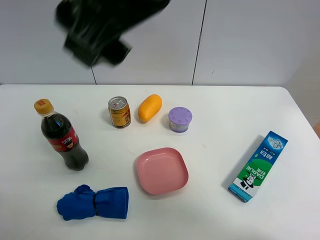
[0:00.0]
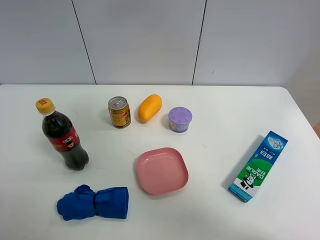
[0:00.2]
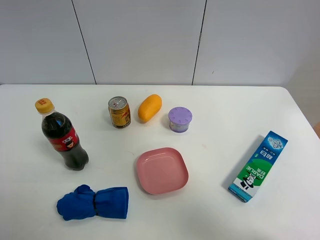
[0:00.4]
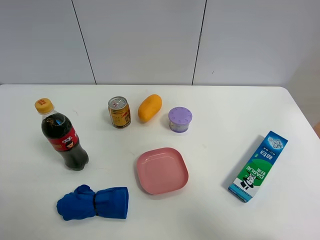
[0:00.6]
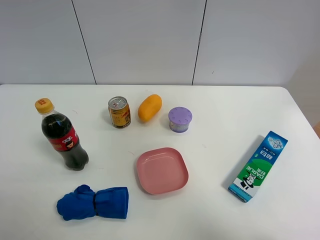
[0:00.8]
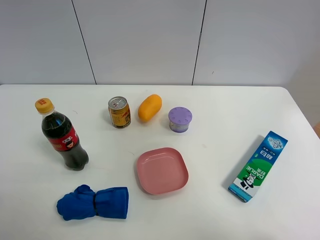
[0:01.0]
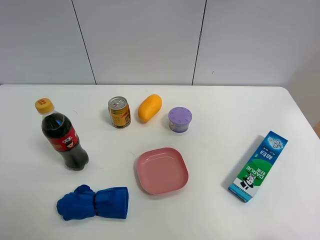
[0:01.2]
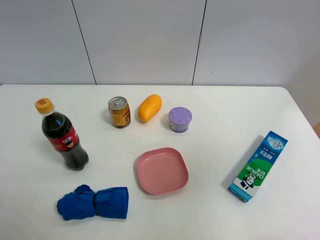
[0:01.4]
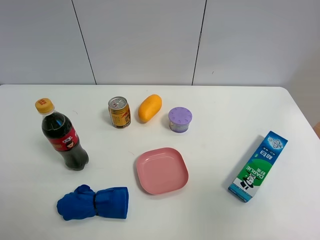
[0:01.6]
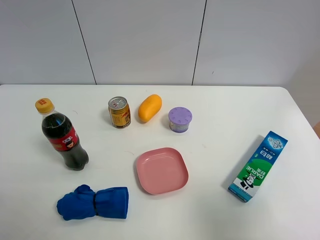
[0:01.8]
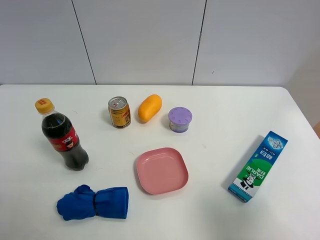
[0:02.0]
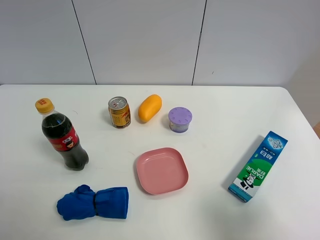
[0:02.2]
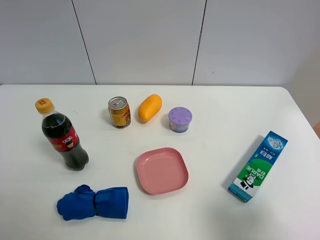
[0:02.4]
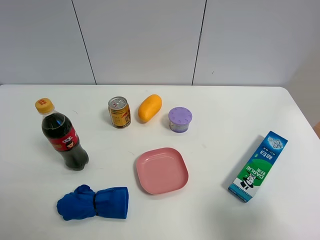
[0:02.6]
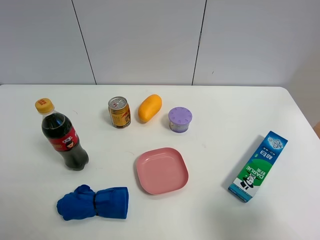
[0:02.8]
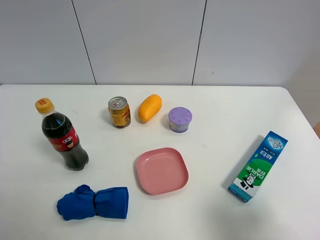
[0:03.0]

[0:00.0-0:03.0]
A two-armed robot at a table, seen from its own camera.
Task of the whole recording: the gripper move the object.
0.0 to 1.6 s: The right gripper shifts roughly 35 cm to the right and backward.
1.6 to 3.0 s: The right gripper is displaced downward by some 15 cm.

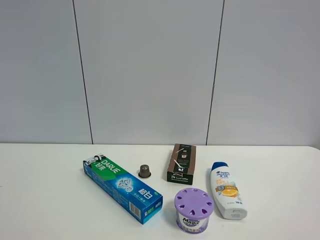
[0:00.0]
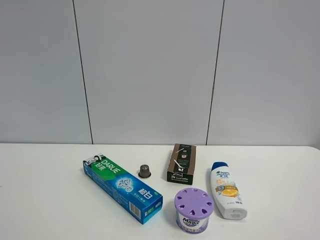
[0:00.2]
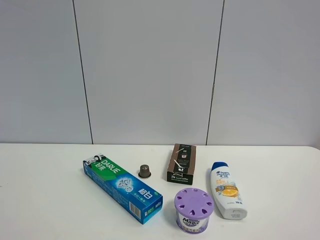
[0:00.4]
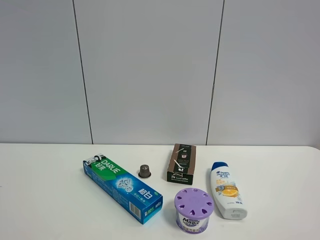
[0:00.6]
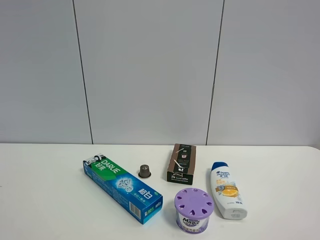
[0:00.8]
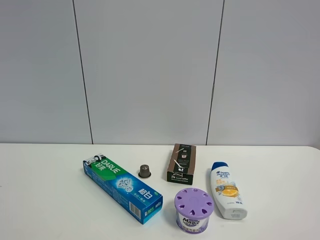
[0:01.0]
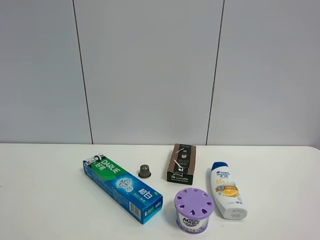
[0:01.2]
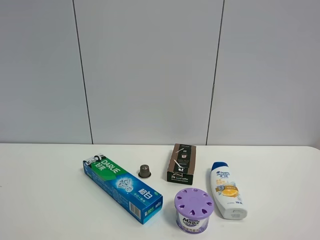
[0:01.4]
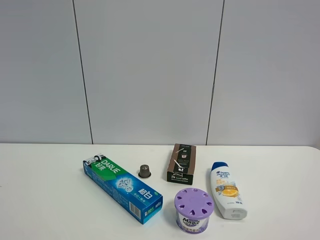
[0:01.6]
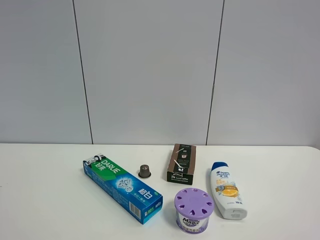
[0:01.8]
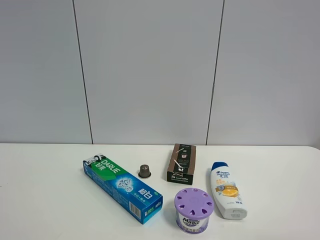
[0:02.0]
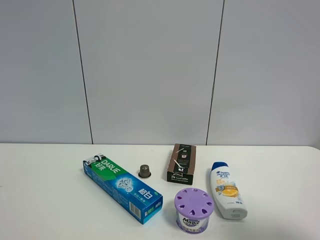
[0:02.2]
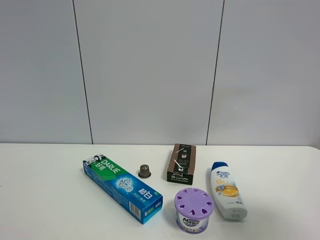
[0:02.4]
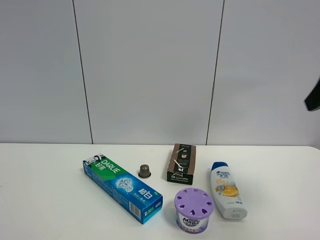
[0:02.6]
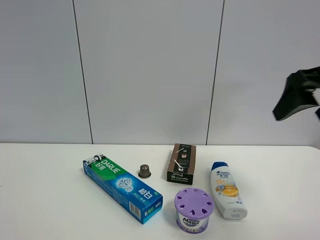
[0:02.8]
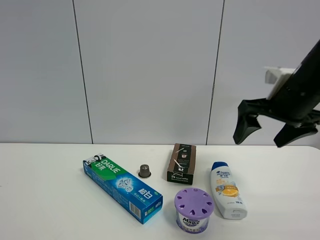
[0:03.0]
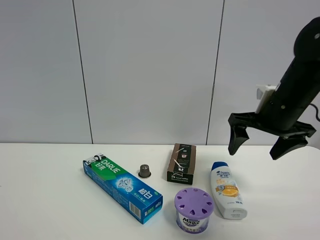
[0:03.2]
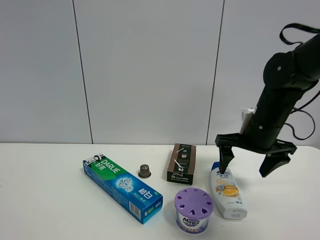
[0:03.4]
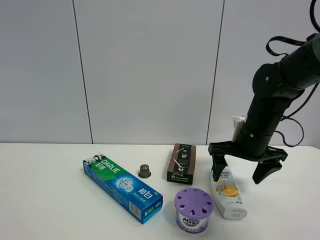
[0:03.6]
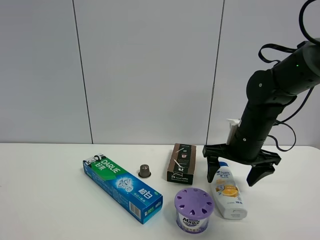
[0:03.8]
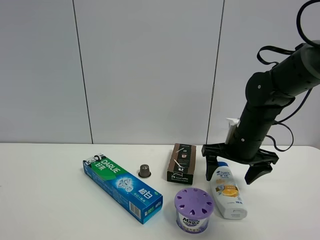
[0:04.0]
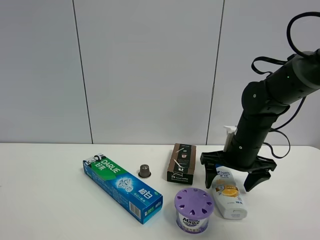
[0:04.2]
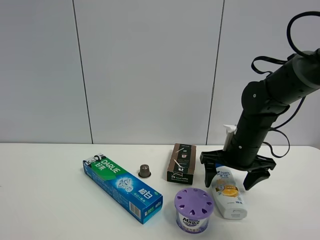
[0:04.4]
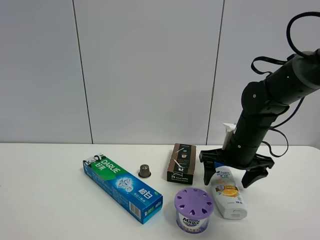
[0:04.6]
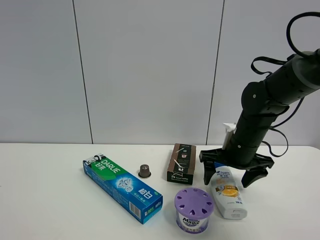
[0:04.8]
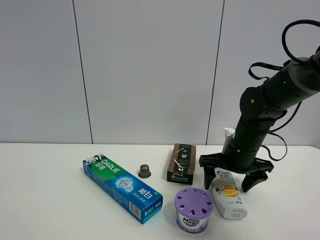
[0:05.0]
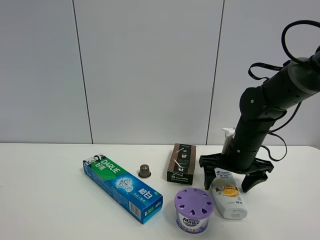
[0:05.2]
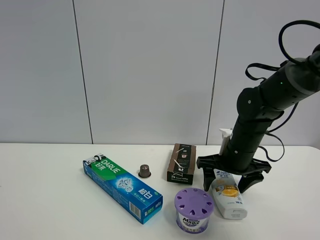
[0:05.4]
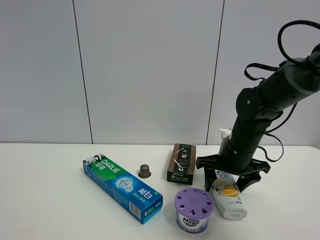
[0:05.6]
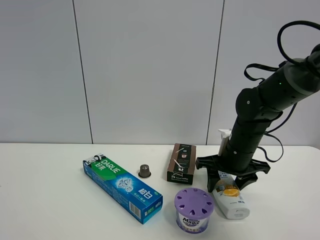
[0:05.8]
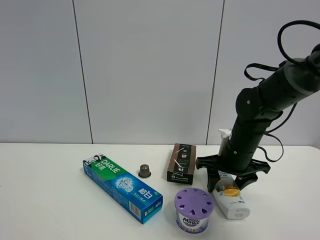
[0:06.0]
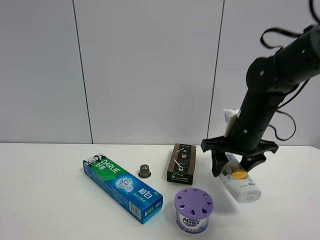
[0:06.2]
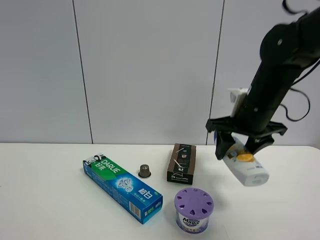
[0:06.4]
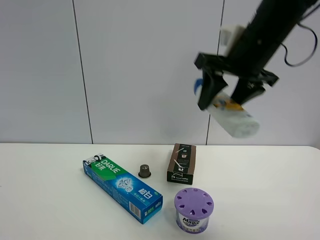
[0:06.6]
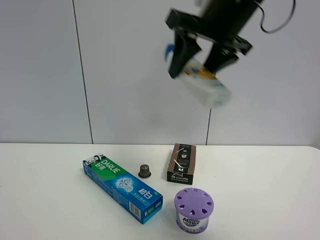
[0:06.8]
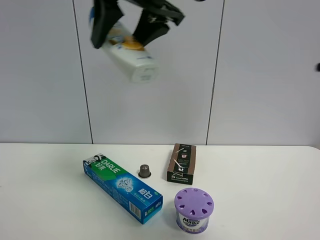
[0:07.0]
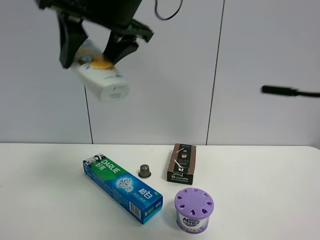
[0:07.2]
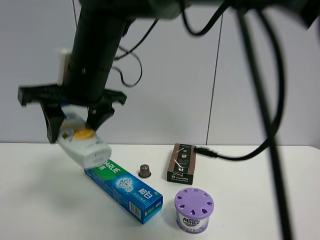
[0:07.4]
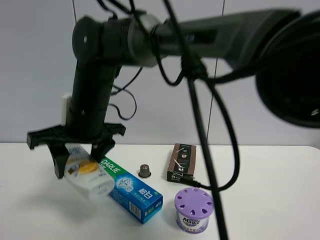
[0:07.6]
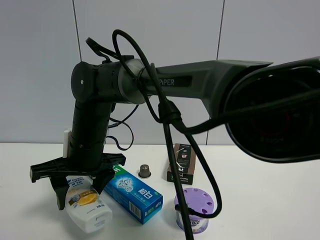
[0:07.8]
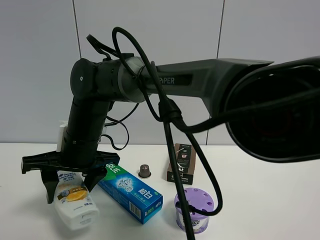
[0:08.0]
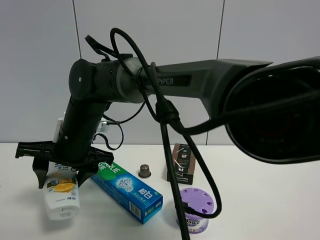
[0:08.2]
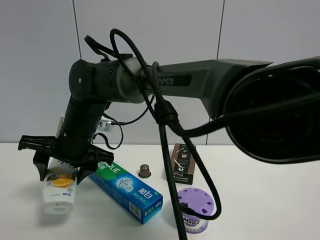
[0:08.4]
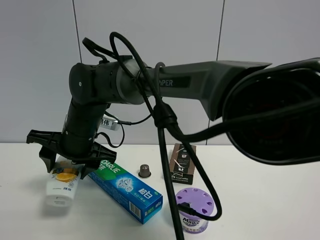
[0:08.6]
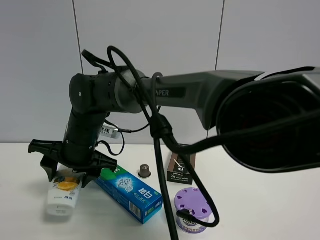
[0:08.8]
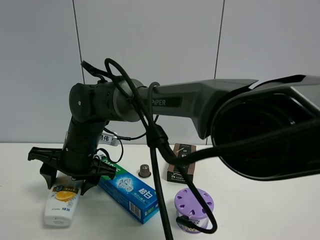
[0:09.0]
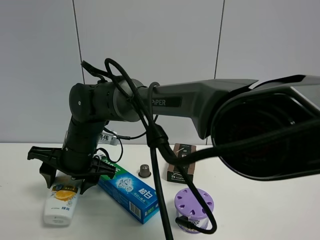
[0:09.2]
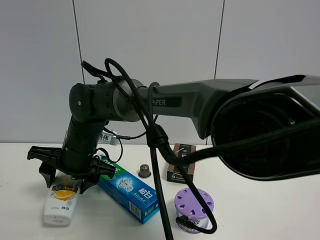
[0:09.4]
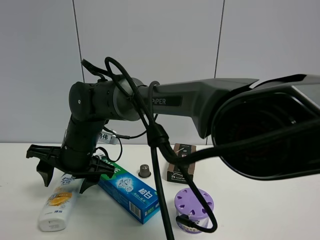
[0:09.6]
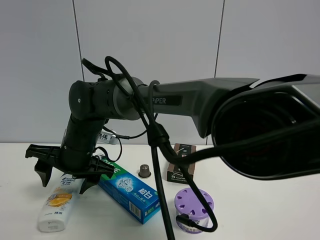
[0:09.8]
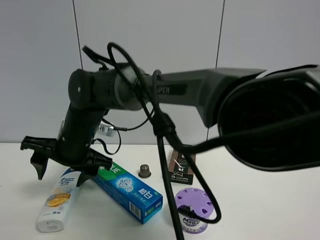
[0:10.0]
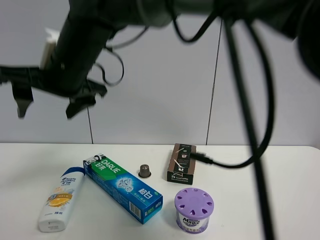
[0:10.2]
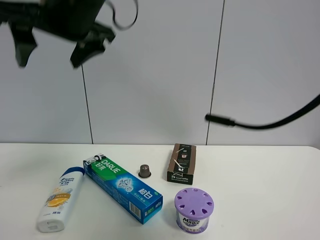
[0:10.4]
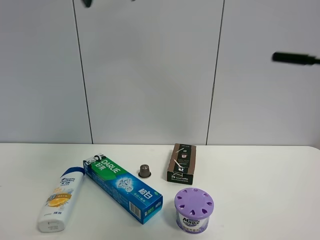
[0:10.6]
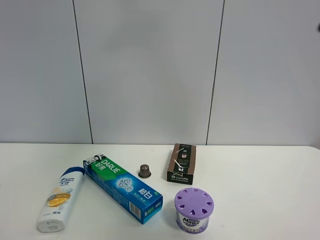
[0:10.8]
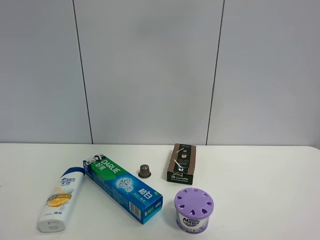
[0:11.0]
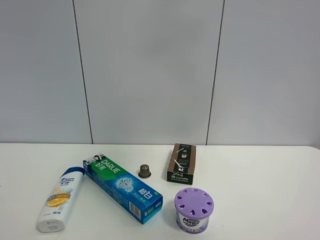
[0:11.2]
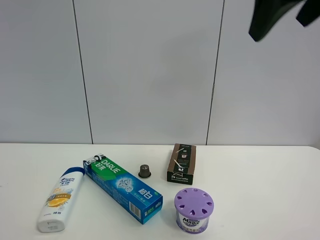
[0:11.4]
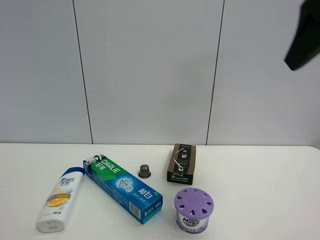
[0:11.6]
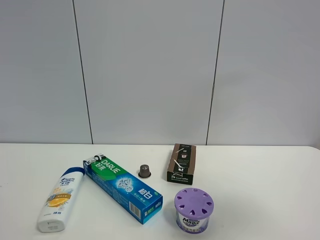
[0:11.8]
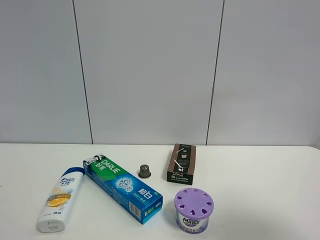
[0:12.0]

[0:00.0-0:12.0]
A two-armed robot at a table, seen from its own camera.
Task of the whole recording: the gripper move the object.
Step, 0.0 to 5.6 s: Grasp the shampoo with the right gripper.
Step, 5.8 to 9.6 s: Place the shampoo on the table with the right gripper.
0.0 to 1.6 s: Both grippers stay put.
1.6 to 3.0 s: The right gripper travels forward by some 30 cm.
3.0 to 4.4 s: The right gripper shifts about 15 cm downward and forward.
4.4 to 6.0 s: The right gripper closes its fingers.
6.0 to 7.6 s: The right gripper travels to the left by some 30 cm.
7.6 to 9.0 s: The right gripper shifts about 5 cm downward.
9.0 to 10.4 s: The right gripper shifts approximately 25 cm upward, and opens its fingers.
10.4 to 12.0 s: The right gripper is displaced to the right and backward by some 40 cm.

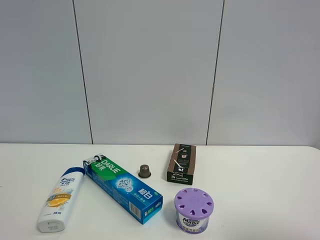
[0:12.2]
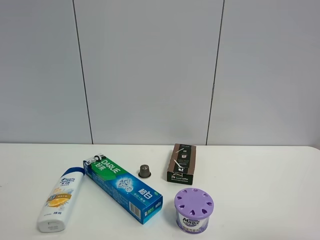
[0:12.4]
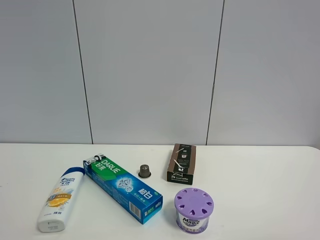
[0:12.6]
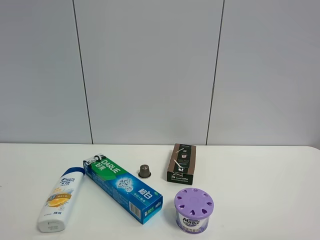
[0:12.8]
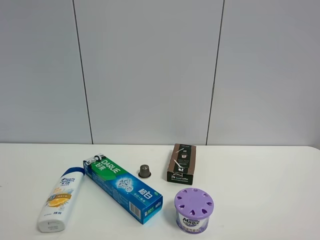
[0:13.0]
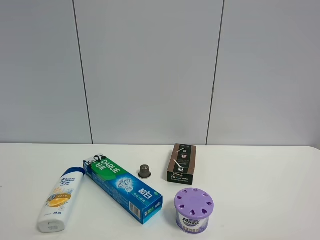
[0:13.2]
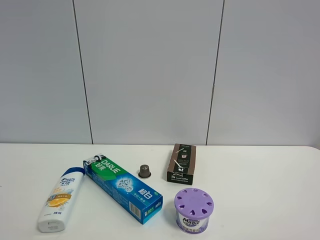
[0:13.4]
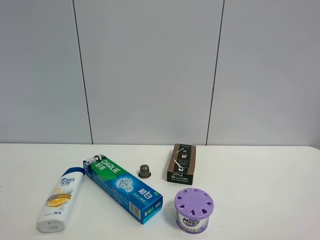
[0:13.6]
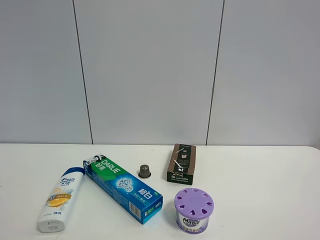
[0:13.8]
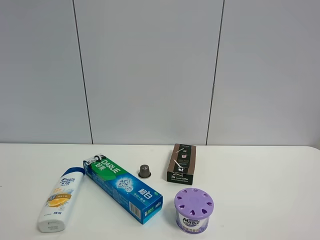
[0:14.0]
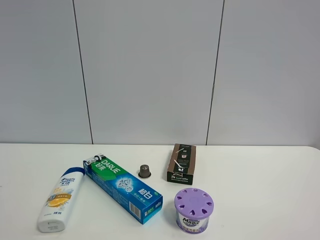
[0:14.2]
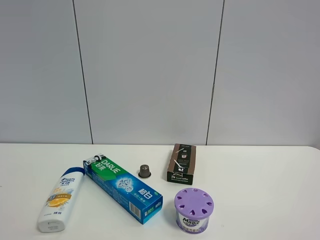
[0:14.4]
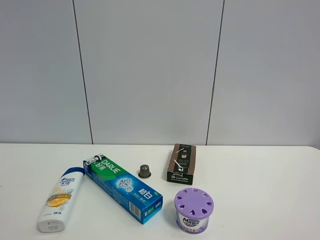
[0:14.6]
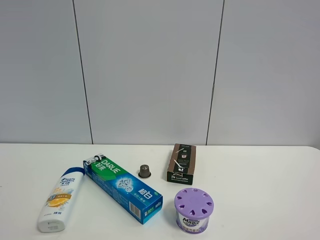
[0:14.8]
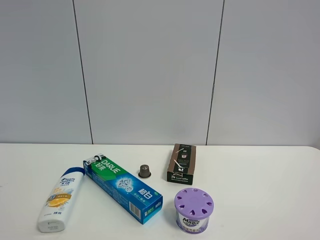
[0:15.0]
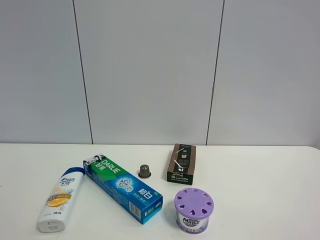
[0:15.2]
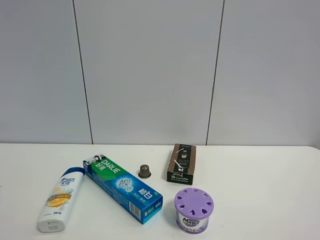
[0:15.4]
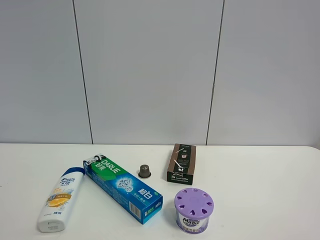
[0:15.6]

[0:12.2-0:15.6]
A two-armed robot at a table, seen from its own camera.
Task of the whole recording: the gripper move the object.
12.2 to 13.8 s: The right gripper is displaced backward by approximately 5 cm.

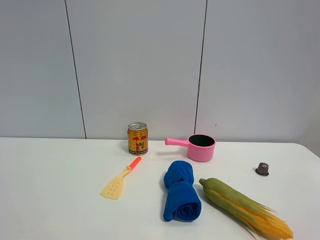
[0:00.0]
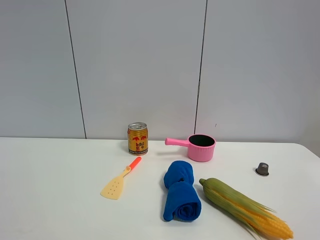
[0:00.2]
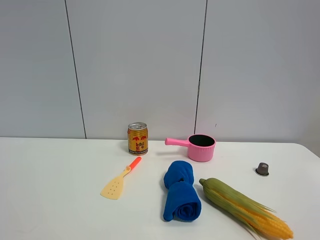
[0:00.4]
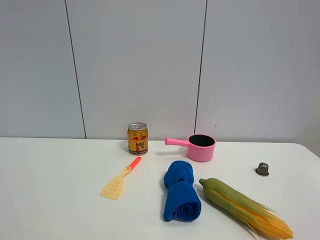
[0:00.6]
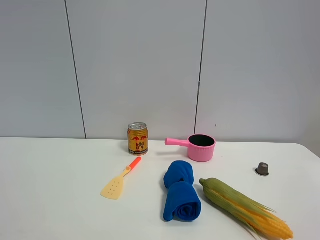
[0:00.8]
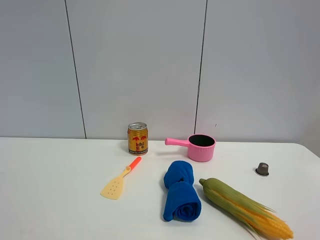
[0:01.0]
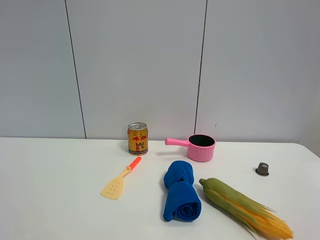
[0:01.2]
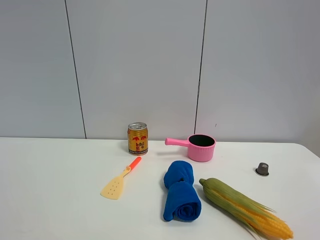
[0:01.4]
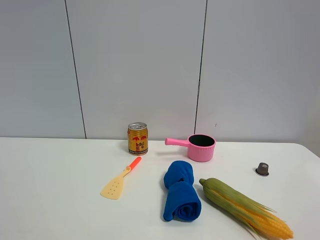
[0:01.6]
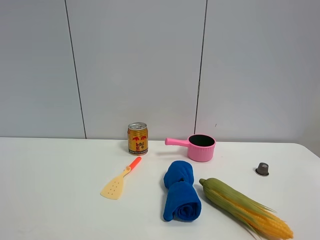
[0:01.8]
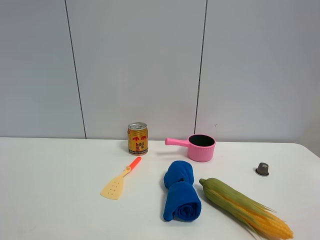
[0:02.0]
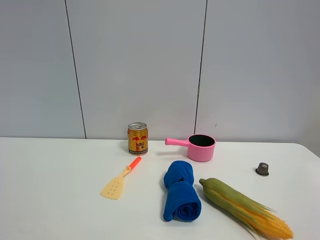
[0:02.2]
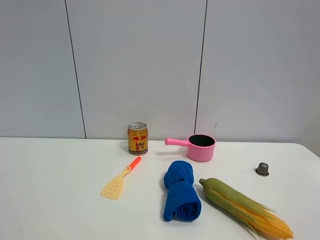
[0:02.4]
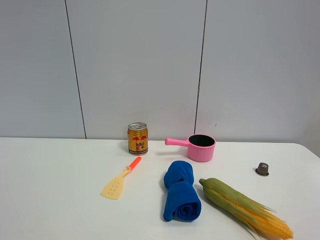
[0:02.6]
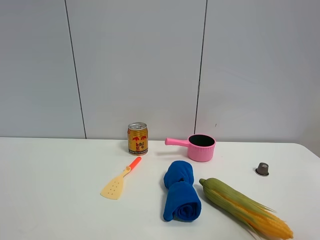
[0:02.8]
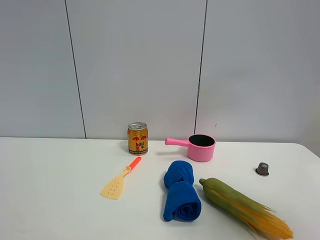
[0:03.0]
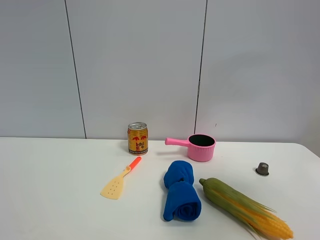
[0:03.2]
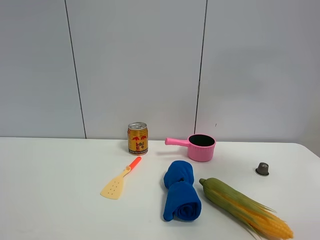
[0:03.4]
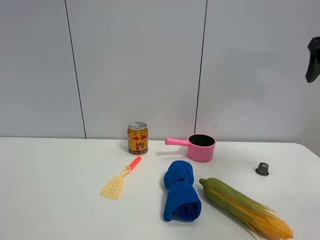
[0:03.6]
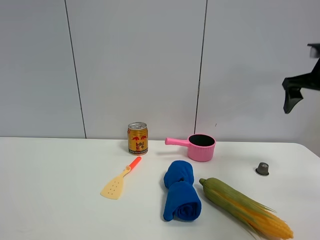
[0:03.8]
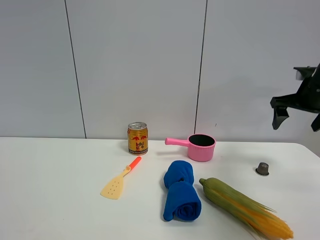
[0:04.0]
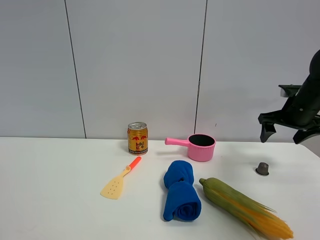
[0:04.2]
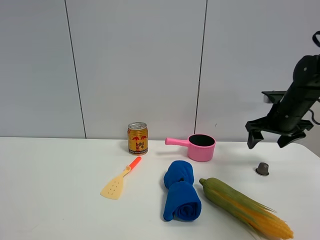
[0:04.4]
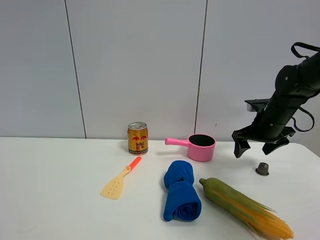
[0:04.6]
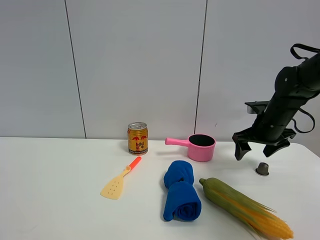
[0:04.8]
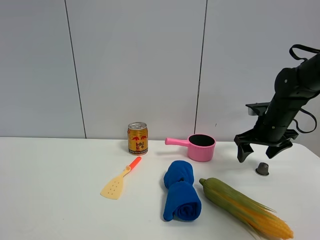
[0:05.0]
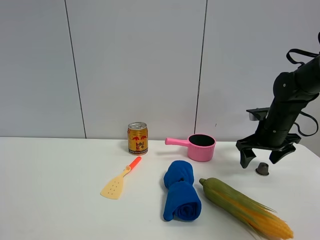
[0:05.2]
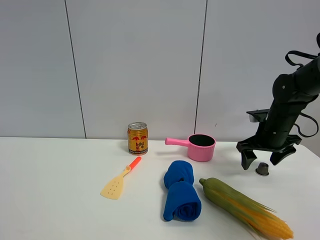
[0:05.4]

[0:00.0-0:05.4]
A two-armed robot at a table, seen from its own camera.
Task of the whole recording: the gripper move the object.
0.0 to 1.4 s: The two grippers keep their place.
2.8 to 4.0 s: The right gripper heads forward, covering some 40 cm.
4.0 to 5.4 s: The right gripper travels downward and to the left by about 10 cm.
